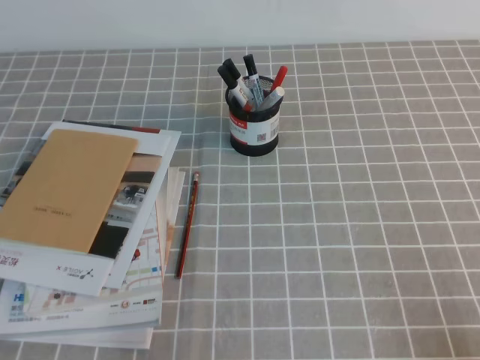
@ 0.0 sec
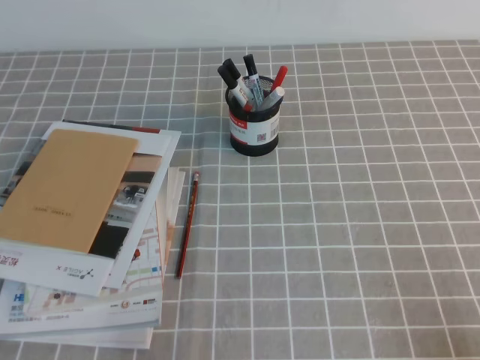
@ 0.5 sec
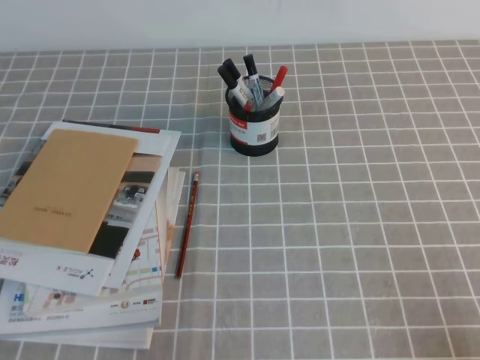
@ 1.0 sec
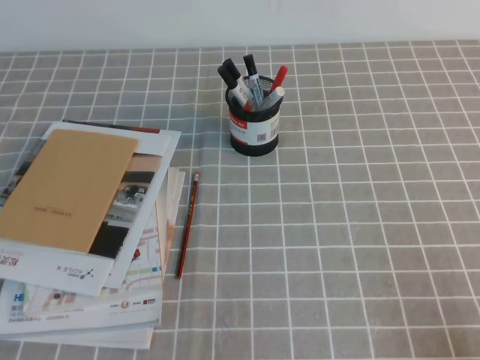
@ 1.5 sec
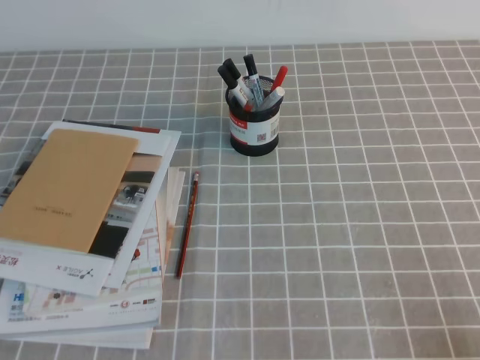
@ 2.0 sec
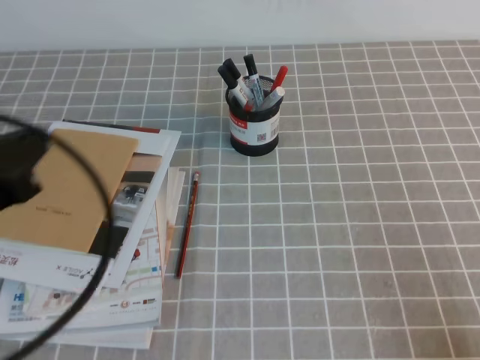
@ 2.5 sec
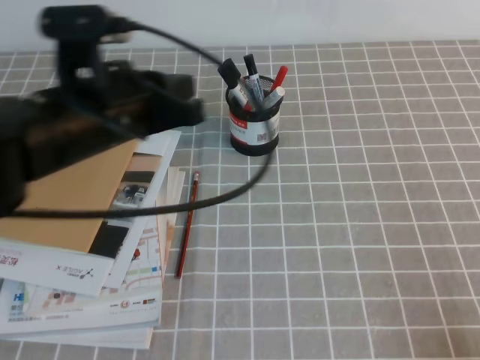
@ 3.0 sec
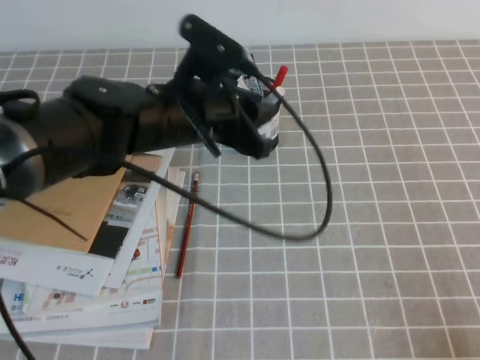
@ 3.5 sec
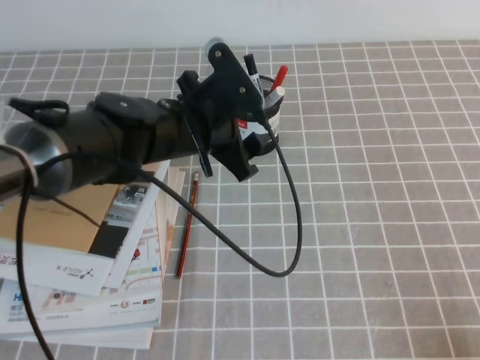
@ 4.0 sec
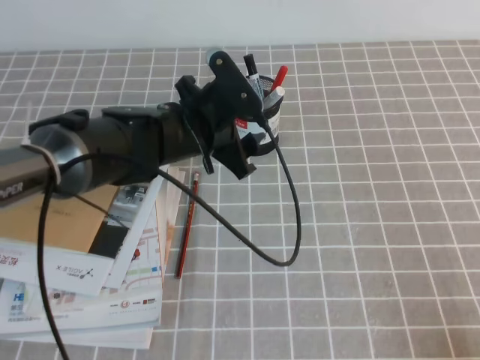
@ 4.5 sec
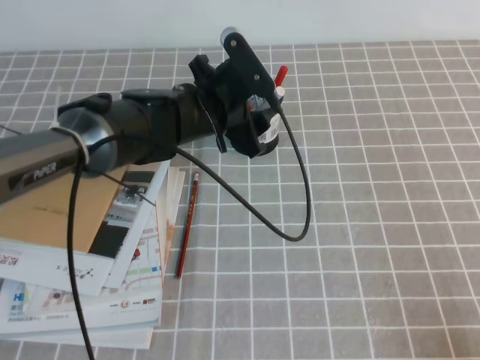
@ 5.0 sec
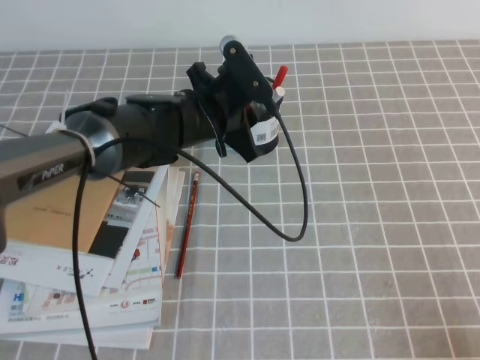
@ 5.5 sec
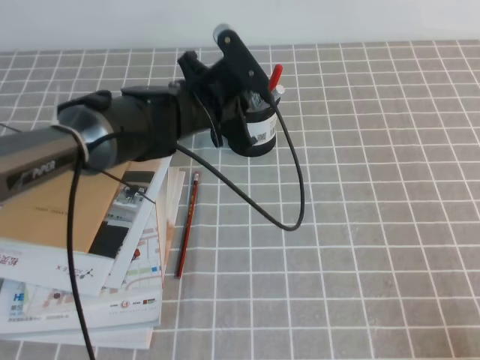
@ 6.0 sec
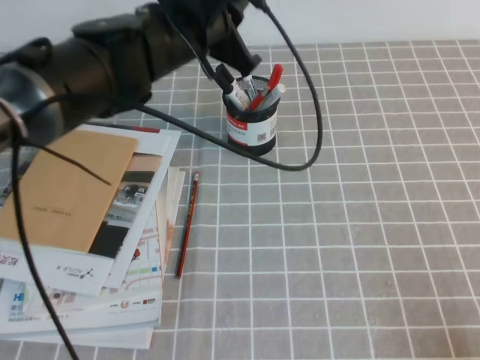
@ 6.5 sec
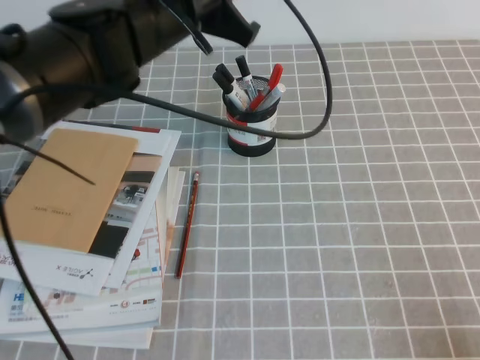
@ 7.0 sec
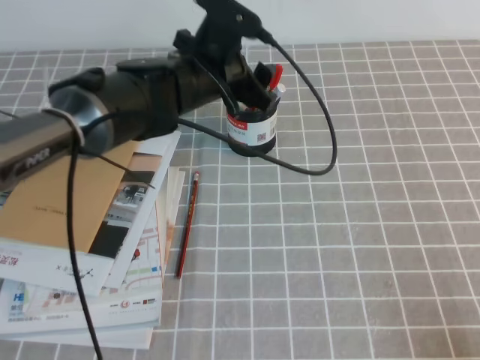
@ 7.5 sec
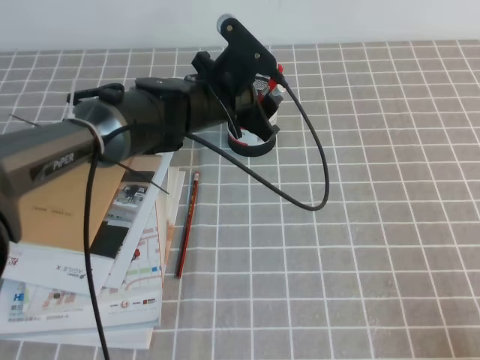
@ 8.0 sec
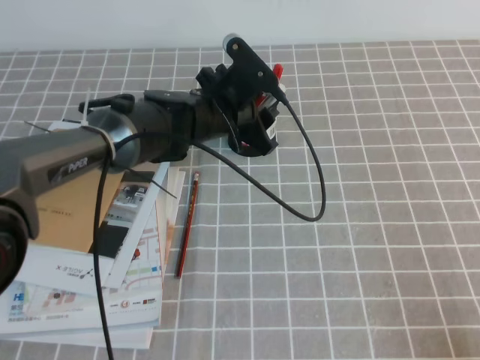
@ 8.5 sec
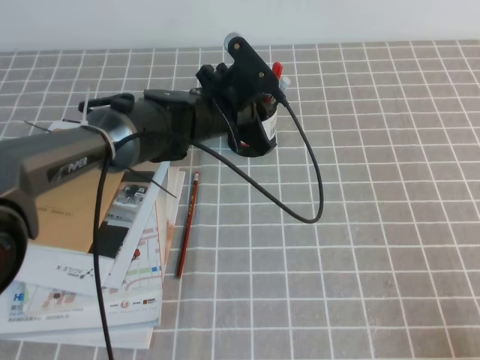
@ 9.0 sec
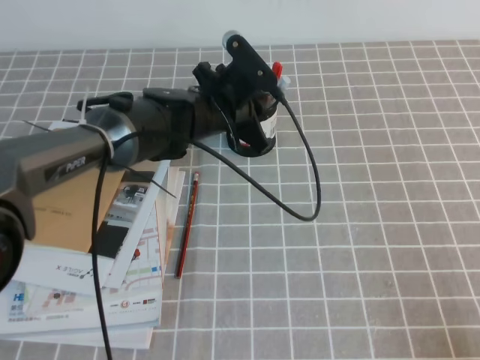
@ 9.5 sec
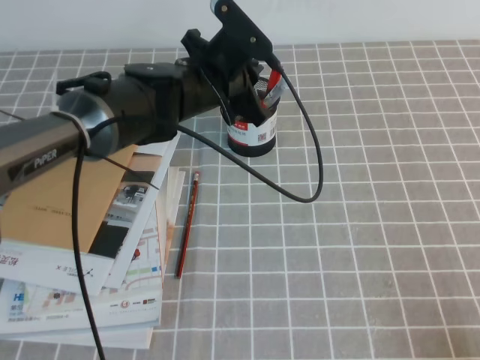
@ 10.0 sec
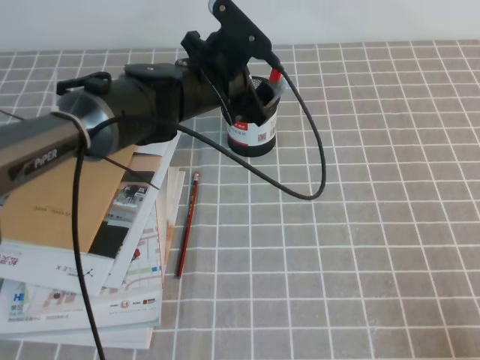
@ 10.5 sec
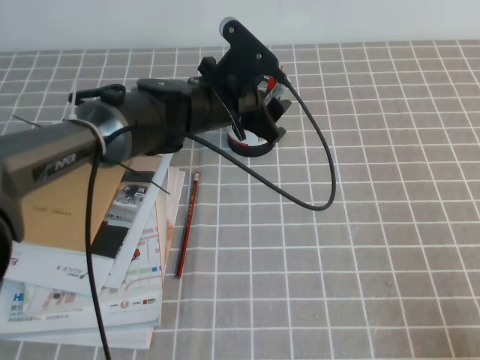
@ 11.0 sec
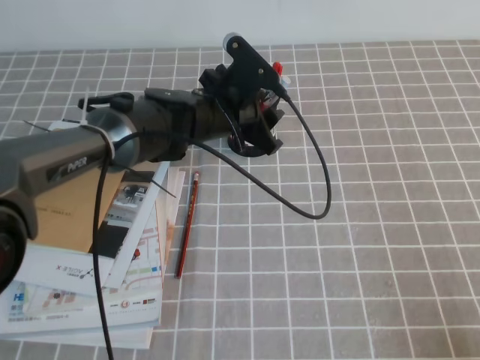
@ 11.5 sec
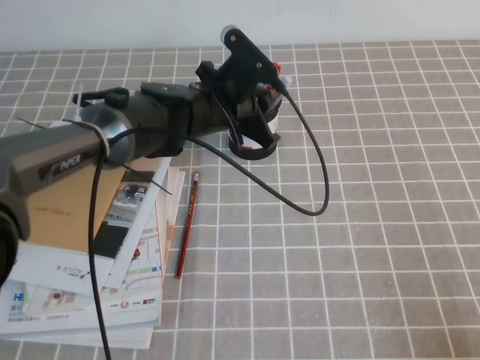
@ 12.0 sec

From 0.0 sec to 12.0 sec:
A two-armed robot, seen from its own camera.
From 2.0 sec to 4.0 sec: The left gripper is displaced forward and to the right by some 35 cm, and opens.
From 4.0 sec to 6.0 sec: The left gripper is displaced forward by some 5 cm, and closes up.
From 6.0 sec to 8.0 sec: The left gripper goes upward and returns, about 10 cm each way, and opens.
From 8.0 sec to 10.0 sec: The left gripper closes its fingers.
From 10.0 sec to 12.0 sec: The left gripper opens and closes again.

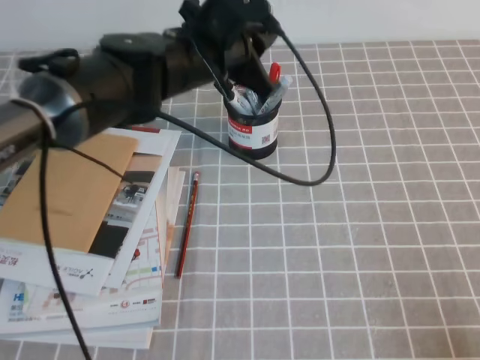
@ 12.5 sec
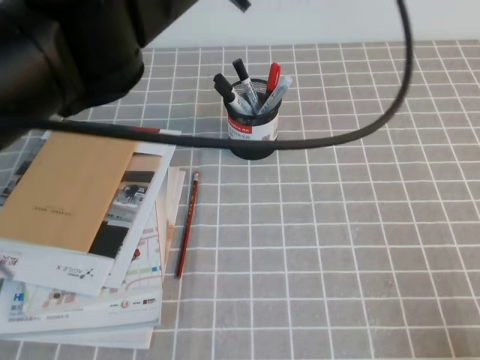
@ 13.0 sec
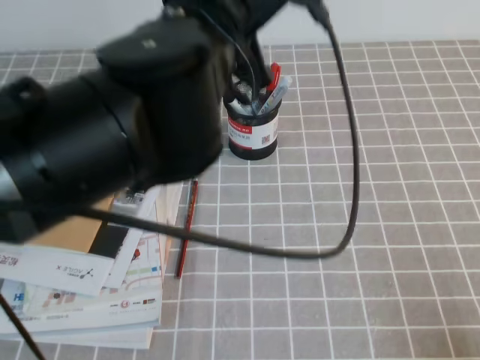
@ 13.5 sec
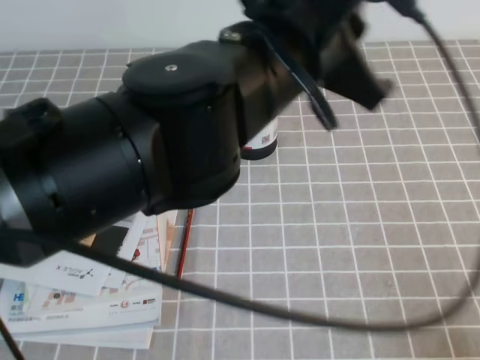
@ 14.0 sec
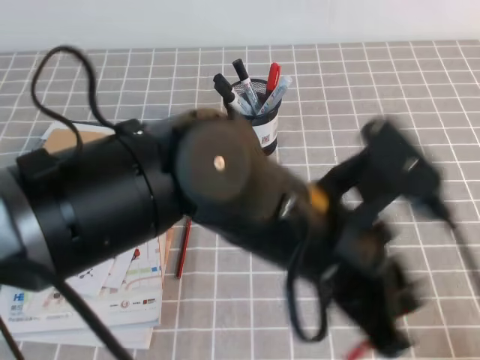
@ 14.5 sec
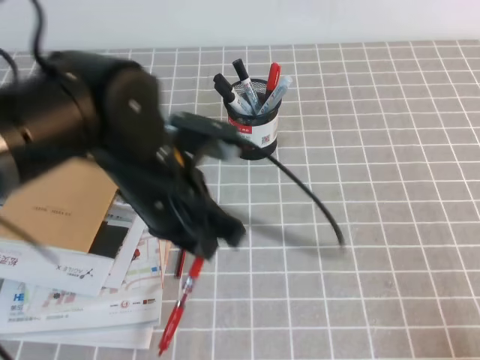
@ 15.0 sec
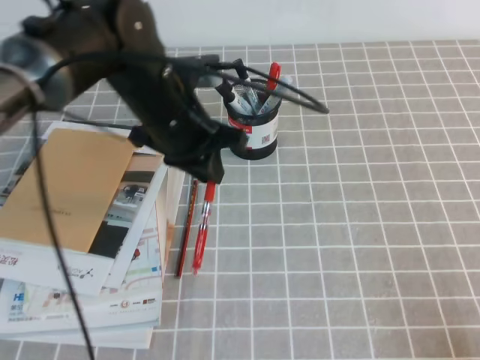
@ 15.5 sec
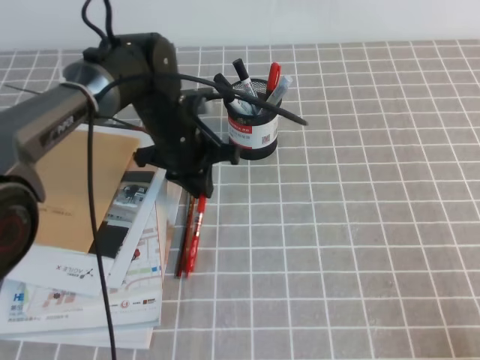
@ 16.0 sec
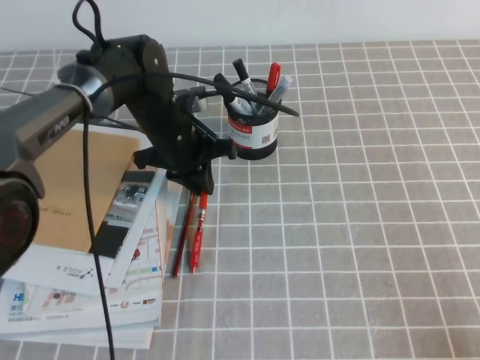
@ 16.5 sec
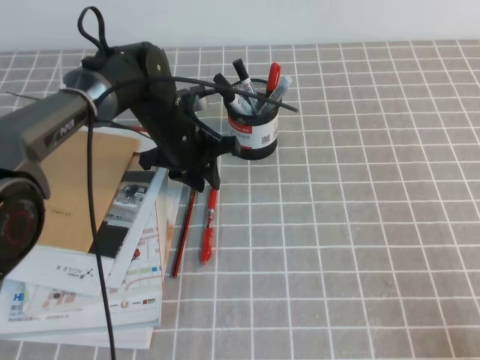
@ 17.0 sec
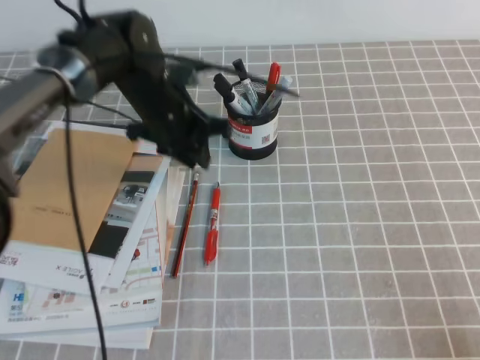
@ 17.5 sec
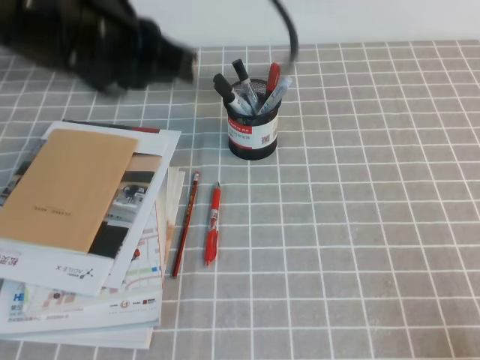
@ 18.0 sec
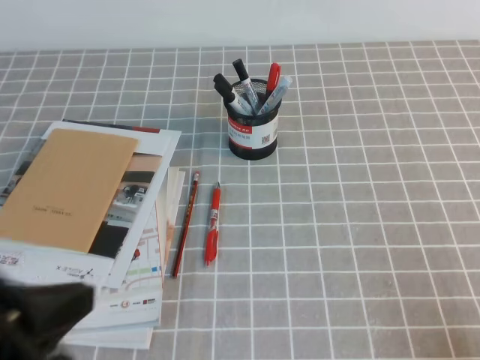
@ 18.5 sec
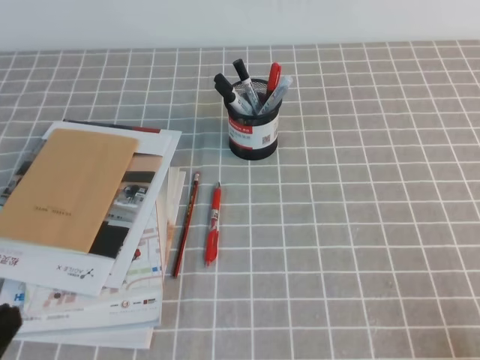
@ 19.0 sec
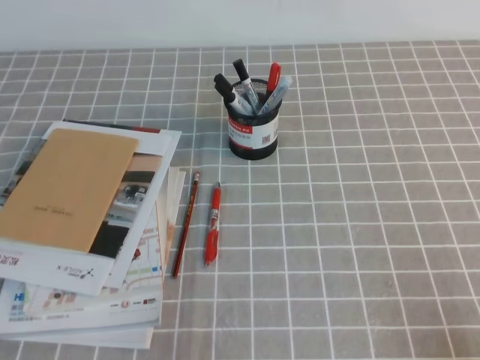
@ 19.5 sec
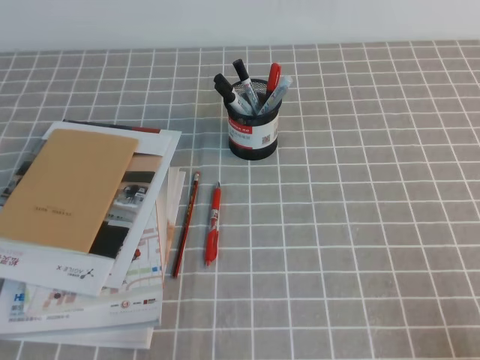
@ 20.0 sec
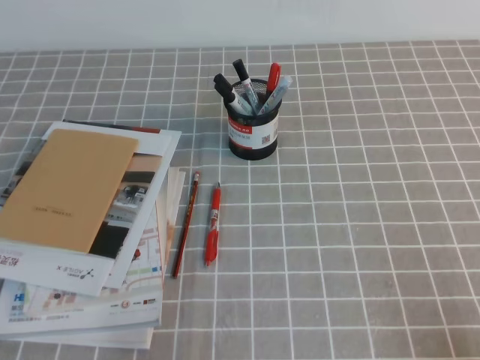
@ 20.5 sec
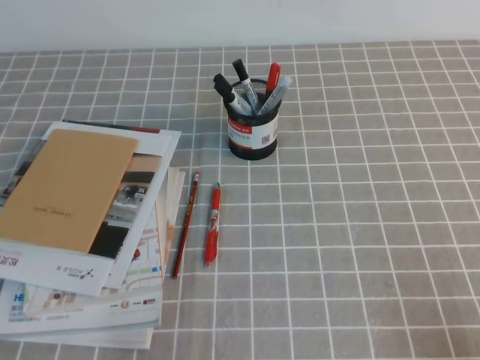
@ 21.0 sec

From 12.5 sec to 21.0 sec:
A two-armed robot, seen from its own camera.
Step, from 12.5 sec to 21.0 sec: Pick up the pen from the pen holder.
From 12.5 sec to 14.5 sec: The left gripper travels backward by about 20 cm.
From 14.5 sec to 16.5 sec: The left gripper is displaced forward, downward and to the left by some 30 cm.
From 16.5 sec to 19.0 sec: The left gripper goes some 40 cm backward and to the left.
From 19.0 sec to 21.0 sec: The left gripper is displaced downward by approximately 10 cm.
